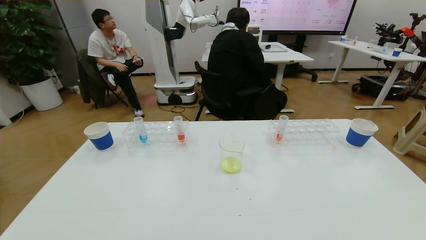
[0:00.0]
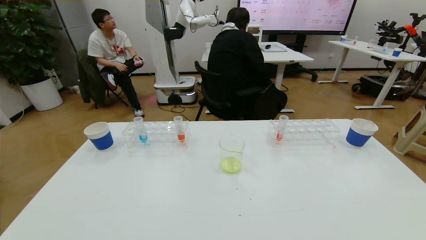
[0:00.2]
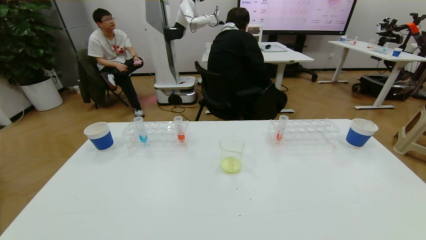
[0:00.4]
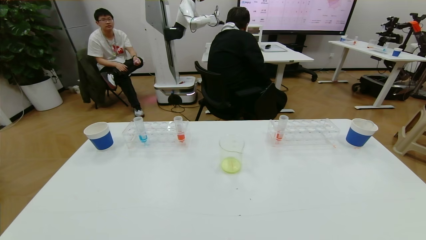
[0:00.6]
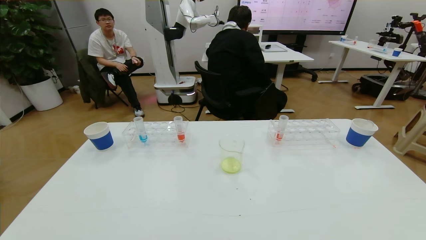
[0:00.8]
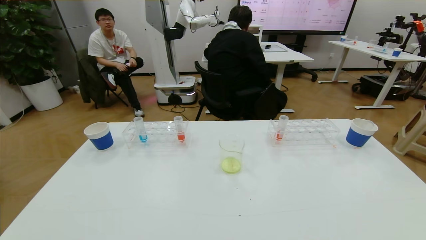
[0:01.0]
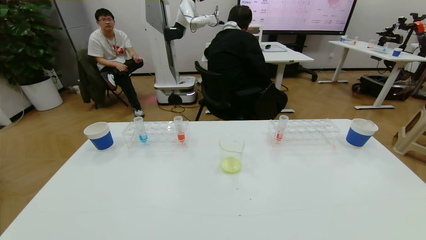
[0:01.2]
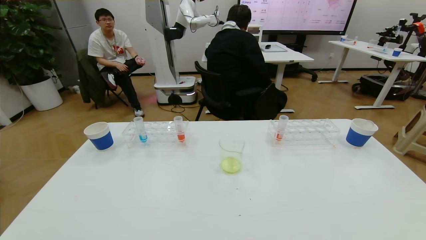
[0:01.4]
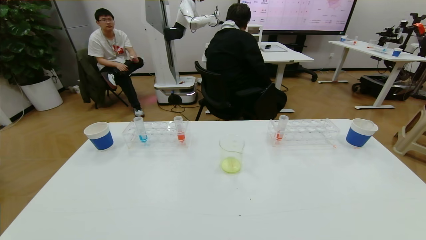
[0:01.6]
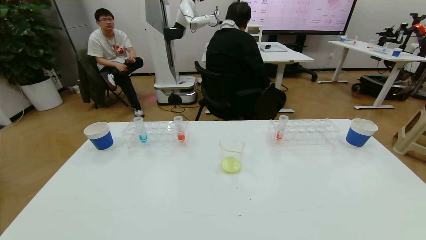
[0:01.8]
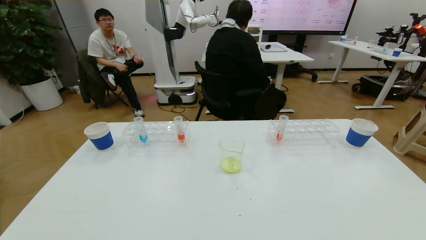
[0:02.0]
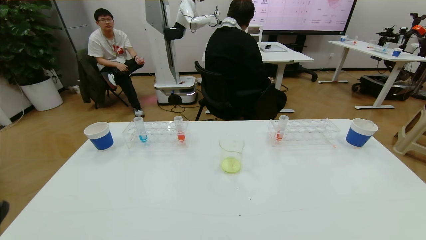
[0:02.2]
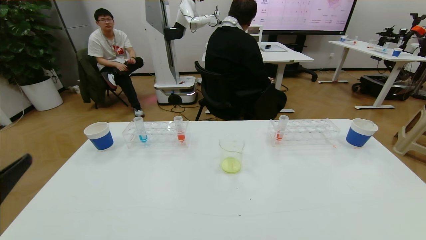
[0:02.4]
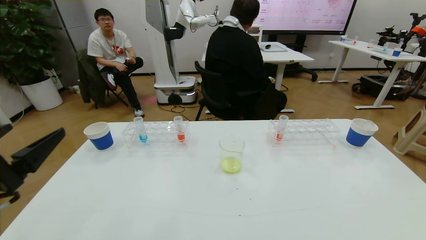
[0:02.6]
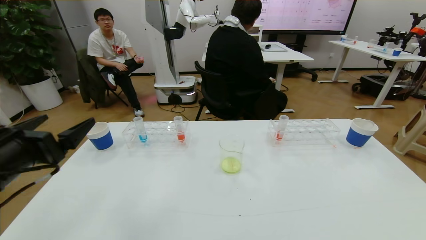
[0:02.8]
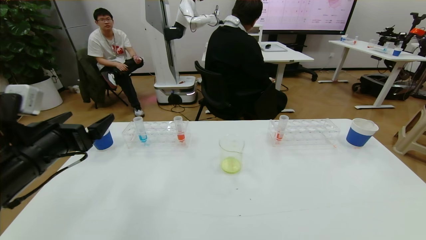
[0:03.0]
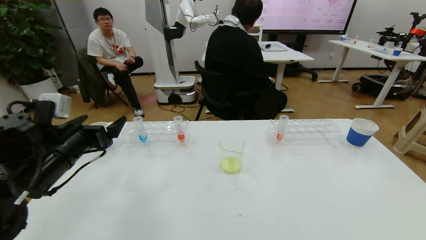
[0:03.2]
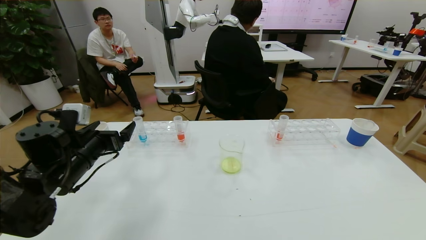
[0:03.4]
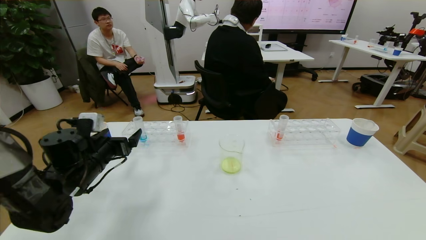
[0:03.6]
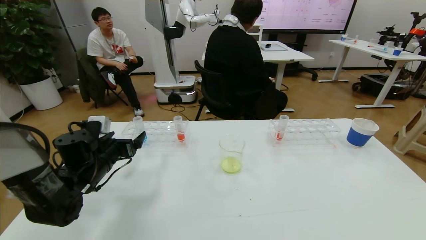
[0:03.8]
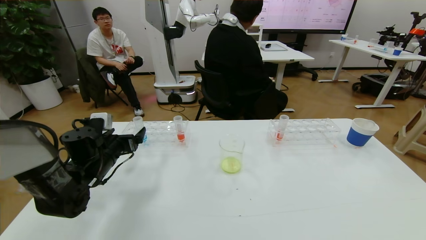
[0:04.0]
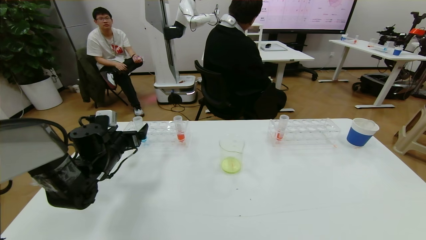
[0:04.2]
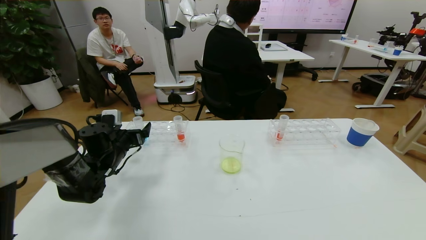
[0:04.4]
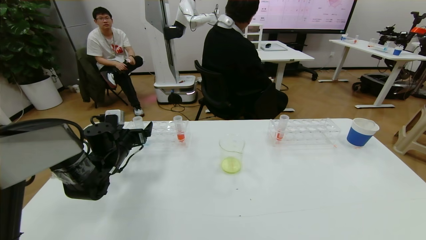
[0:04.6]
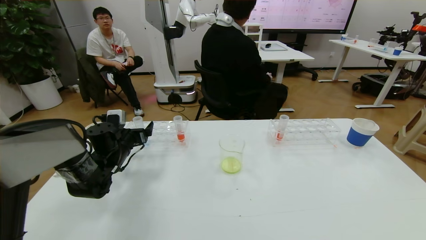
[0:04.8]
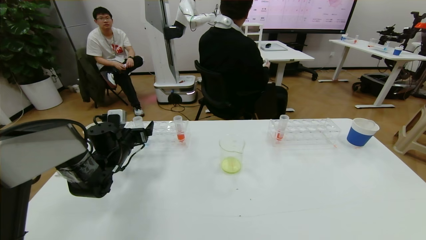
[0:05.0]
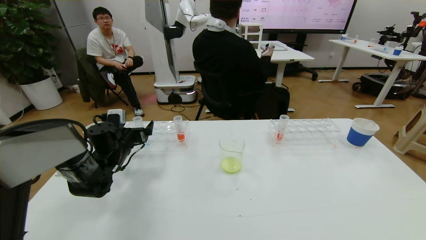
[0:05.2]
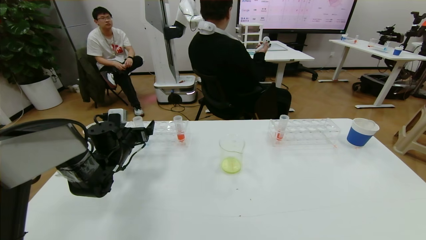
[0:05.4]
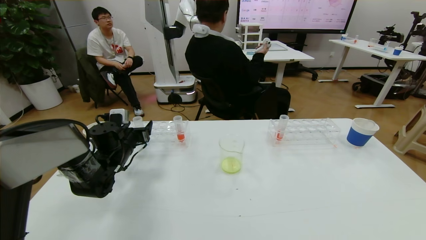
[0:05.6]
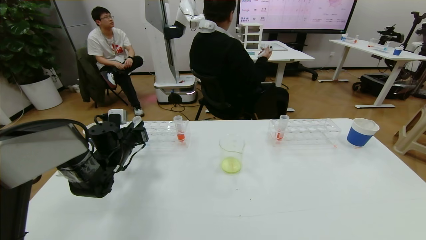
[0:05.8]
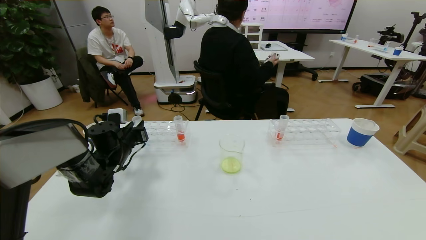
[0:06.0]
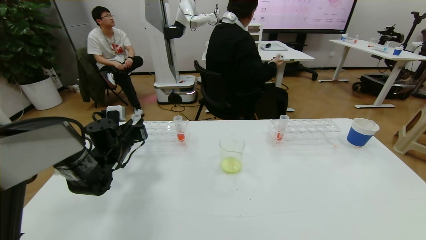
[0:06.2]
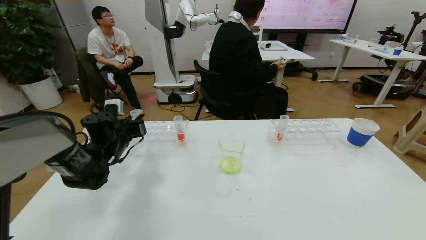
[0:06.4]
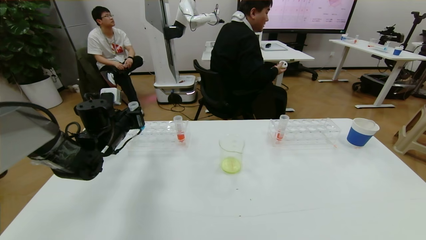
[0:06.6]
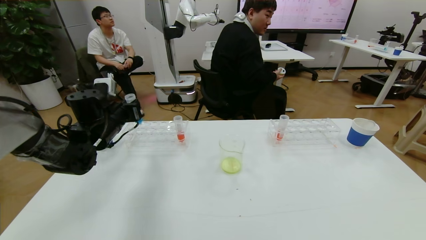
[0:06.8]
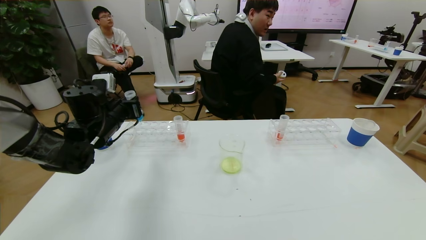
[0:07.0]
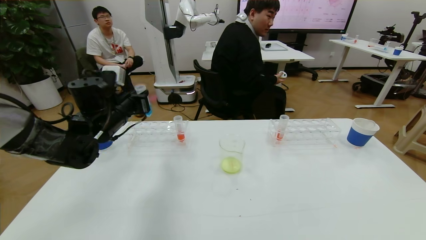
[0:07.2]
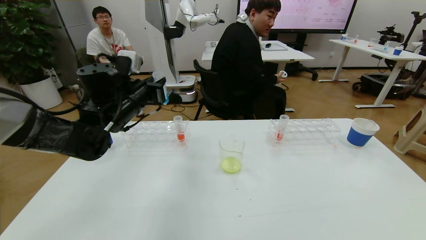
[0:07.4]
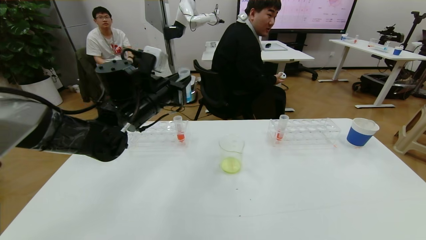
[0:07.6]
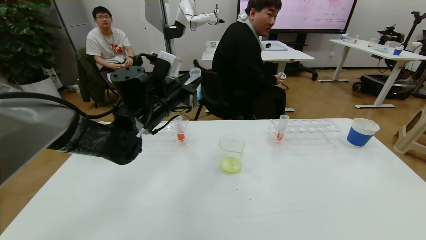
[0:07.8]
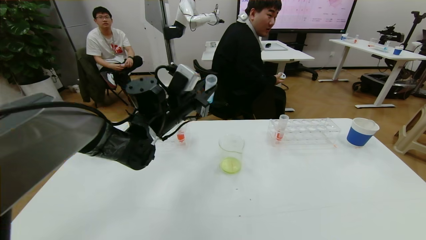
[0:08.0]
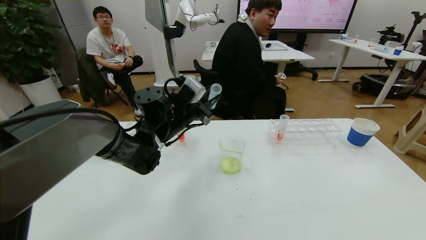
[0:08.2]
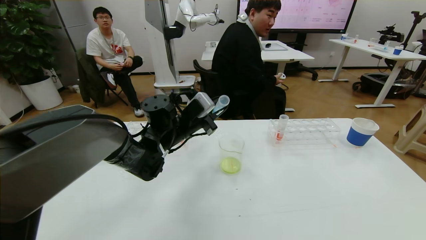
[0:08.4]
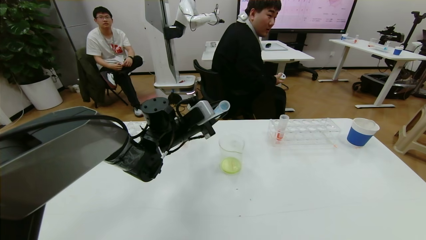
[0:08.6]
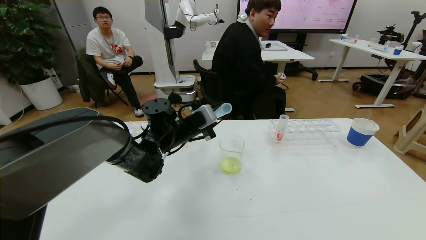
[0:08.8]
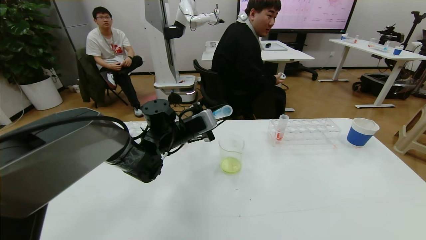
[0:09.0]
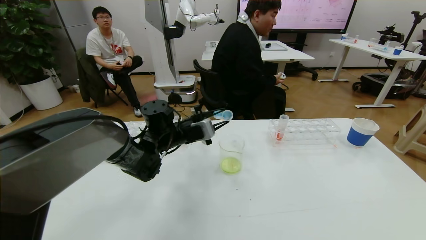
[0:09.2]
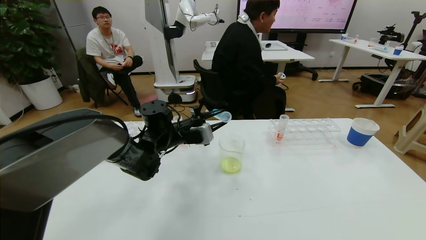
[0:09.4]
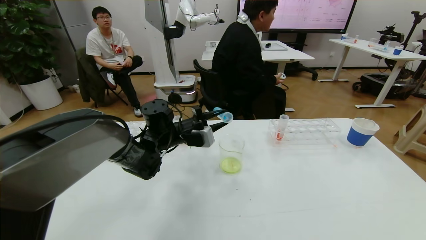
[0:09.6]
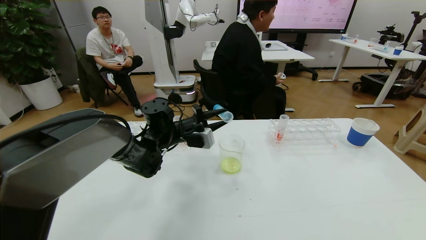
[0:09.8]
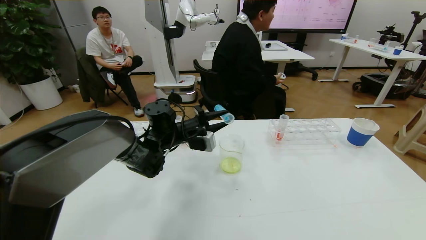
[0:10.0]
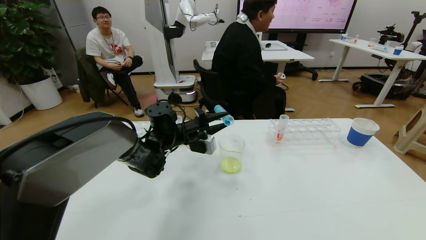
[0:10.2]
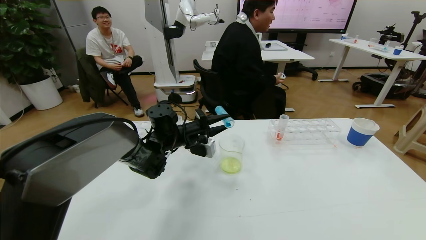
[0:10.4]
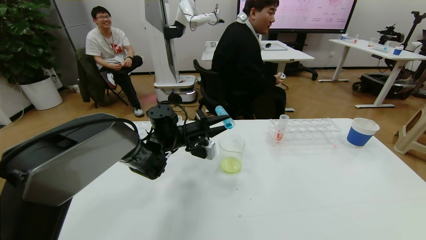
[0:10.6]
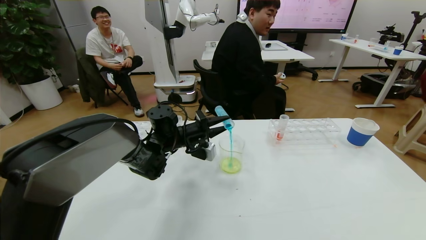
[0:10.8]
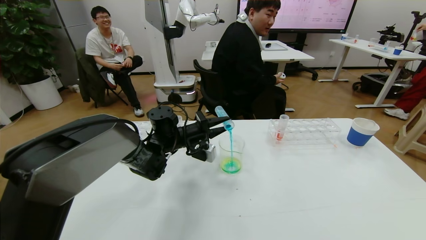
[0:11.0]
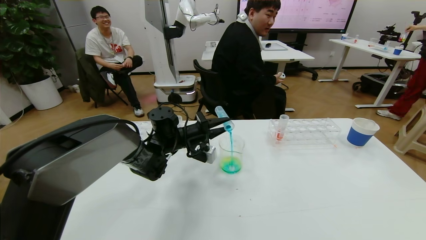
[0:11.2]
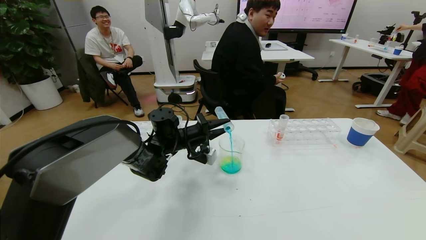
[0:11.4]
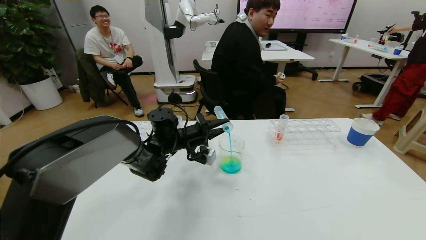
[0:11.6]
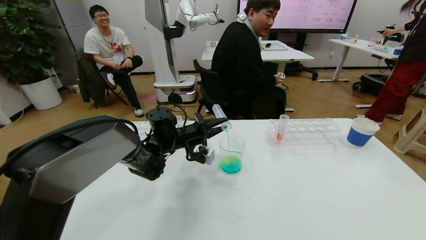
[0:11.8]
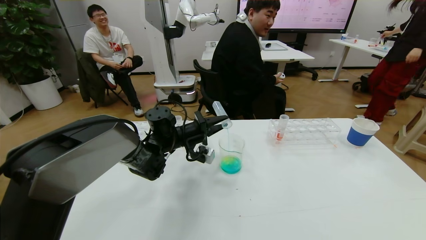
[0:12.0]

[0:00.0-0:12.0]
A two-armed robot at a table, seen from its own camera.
Task of the whole recording: pick up the test tube with yellow pigment and the test tube with blue pigment by grippers and pour them into the beaker.
0:00.0 to 0:01.6: The right gripper goes about 5 cm downward.
0:01.6 to 0:03.0: The left gripper shifts approximately 25 cm forward and upward.
0:03.0 to 0:04.4: The left gripper heads forward and downward, covering about 20 cm.
0:04.4 to 0:06.0: The left gripper closes up.
0:06.0 to 0:07.6: The left gripper heads upward and to the right, covering roughly 20 cm.
0:07.6 to 0:09.0: The left gripper travels downward and to the right by some 10 cm.
0:10.4 to 0:12.0: The grippers stay close to where they were, moving slightly.

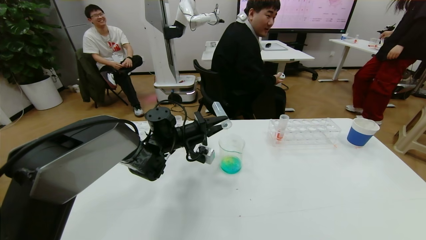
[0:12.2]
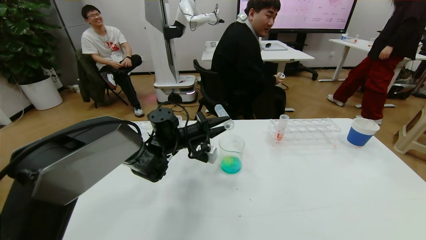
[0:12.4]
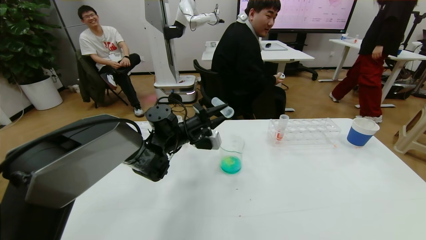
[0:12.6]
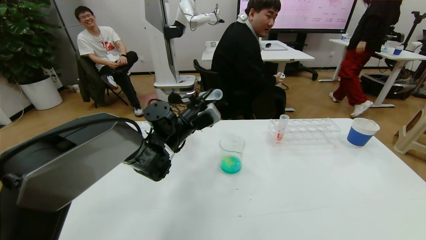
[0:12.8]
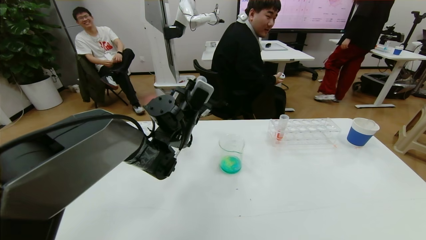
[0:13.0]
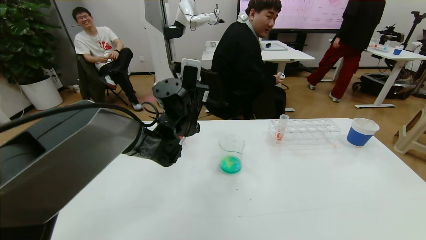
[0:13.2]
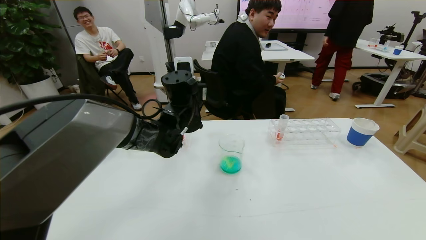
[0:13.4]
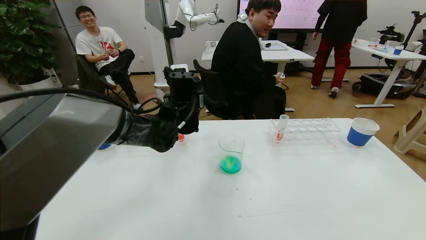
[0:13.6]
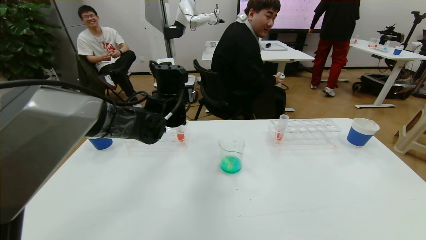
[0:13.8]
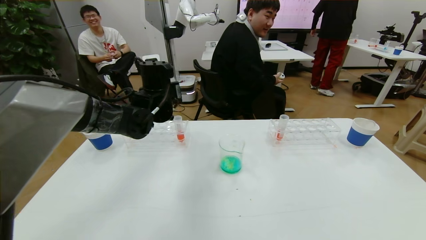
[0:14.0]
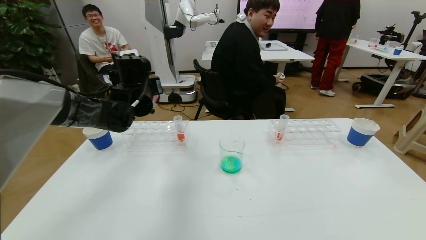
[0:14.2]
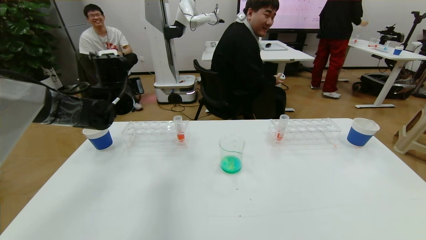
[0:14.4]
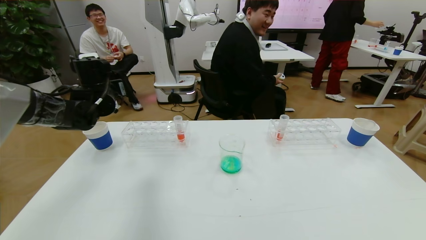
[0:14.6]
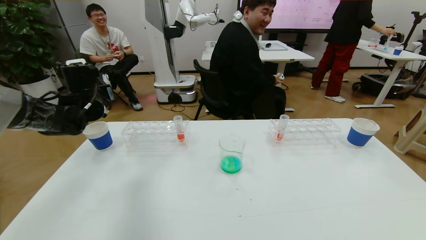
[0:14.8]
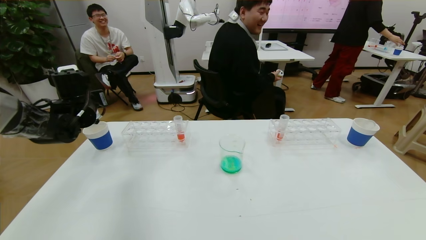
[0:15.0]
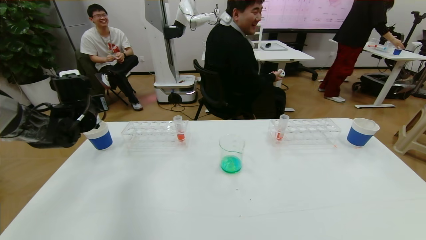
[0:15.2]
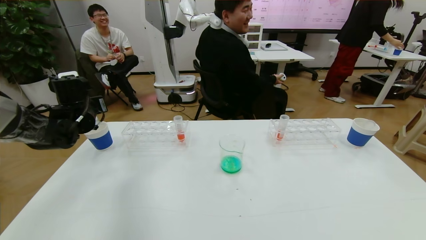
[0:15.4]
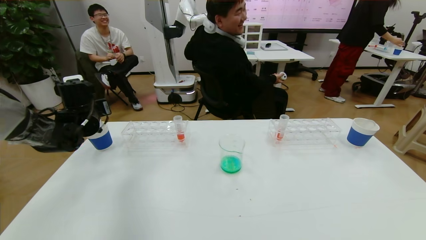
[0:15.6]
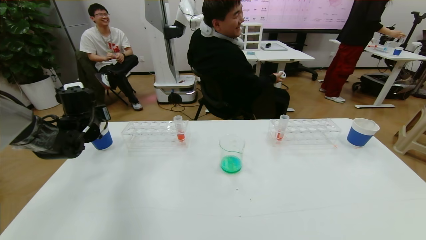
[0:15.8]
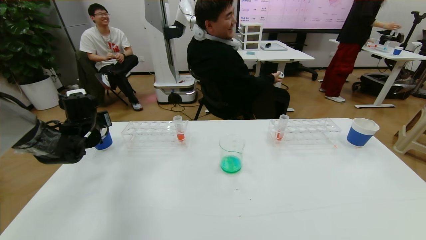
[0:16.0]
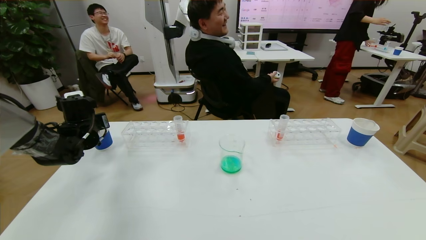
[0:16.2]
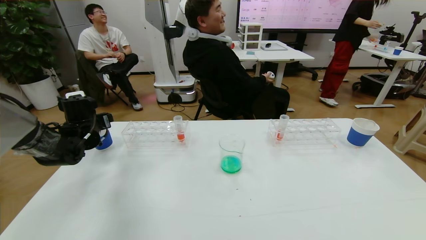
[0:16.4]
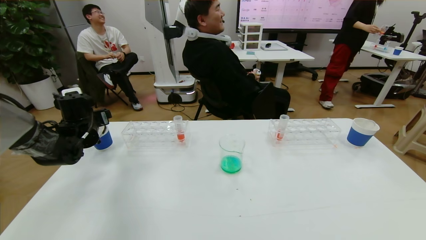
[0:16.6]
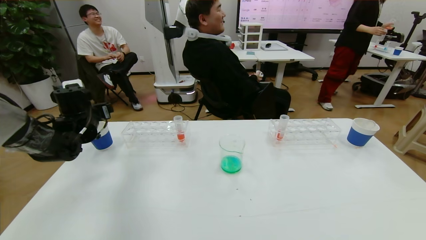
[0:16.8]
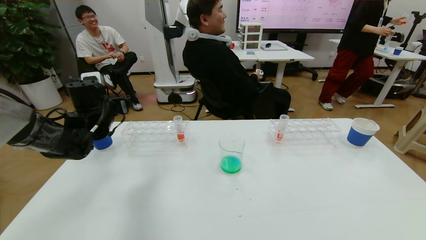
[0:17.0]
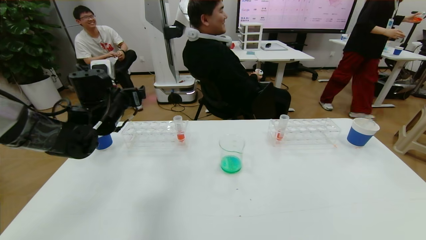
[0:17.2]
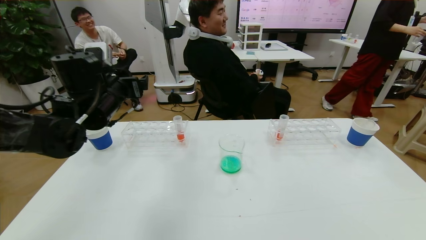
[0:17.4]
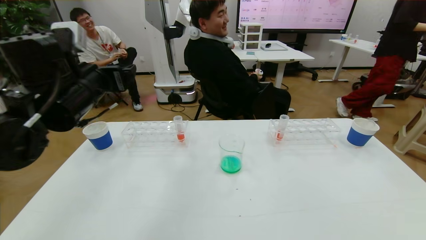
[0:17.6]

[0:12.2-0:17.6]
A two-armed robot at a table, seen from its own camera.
Task of the whole recording: pick up the test tube with yellow pigment and the test tube with blue pigment by grippers and pour them into the beaker.
0:12.2 to 0:13.6: The left gripper travels upward by approximately 10 cm.
0:13.6 to 0:15.0: The left gripper goes approximately 25 cm to the left.
0:15.0 to 0:16.2: The left gripper goes some 5 cm downward, and opens up.
0:16.2 to 0:17.6: The left gripper heads upward, to the right and backward, covering approximately 20 cm, and opens its fingers.
